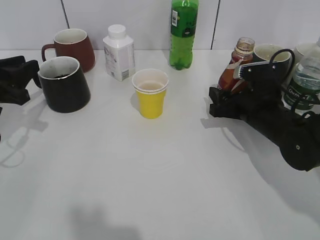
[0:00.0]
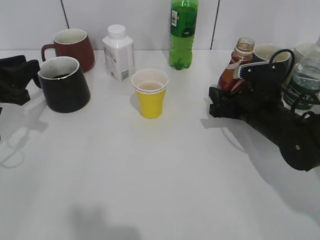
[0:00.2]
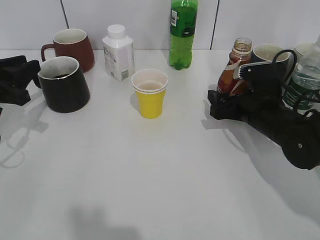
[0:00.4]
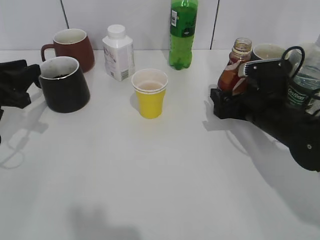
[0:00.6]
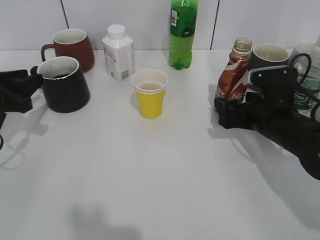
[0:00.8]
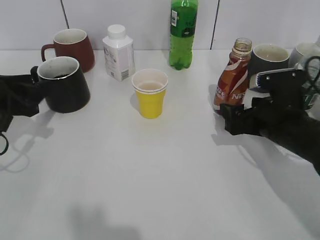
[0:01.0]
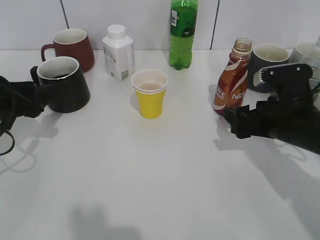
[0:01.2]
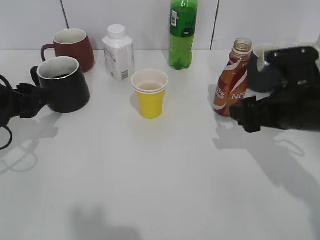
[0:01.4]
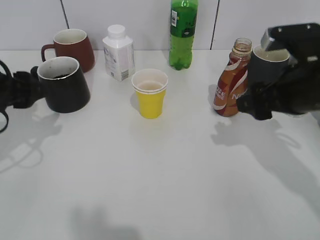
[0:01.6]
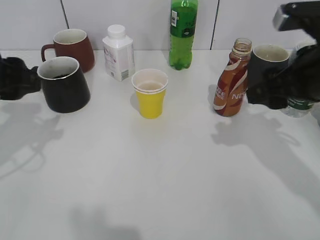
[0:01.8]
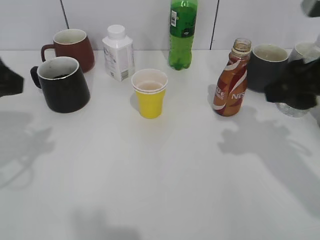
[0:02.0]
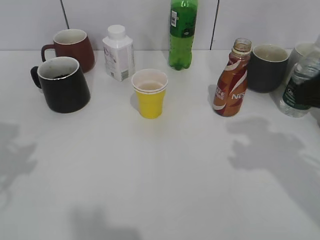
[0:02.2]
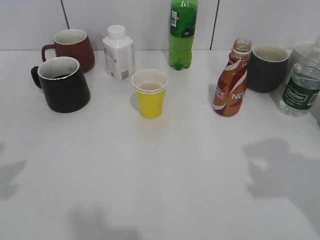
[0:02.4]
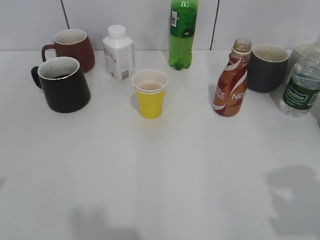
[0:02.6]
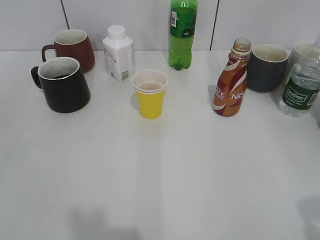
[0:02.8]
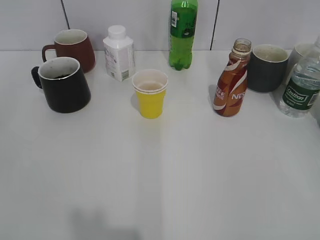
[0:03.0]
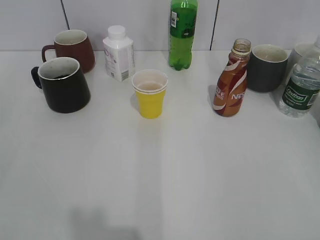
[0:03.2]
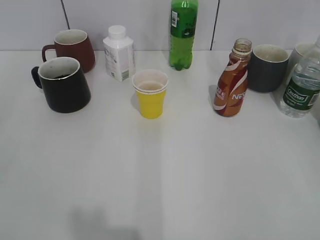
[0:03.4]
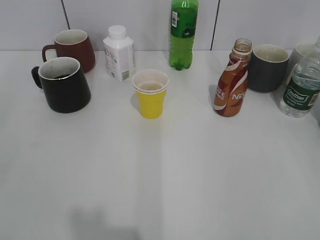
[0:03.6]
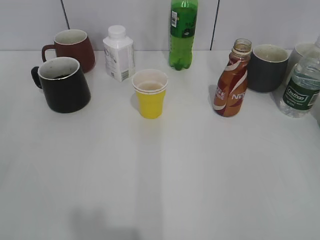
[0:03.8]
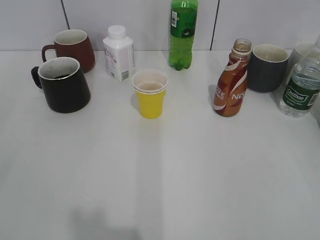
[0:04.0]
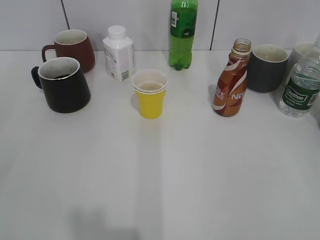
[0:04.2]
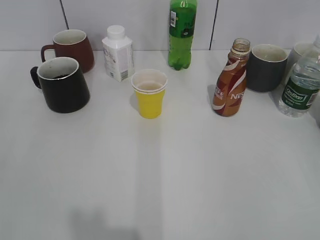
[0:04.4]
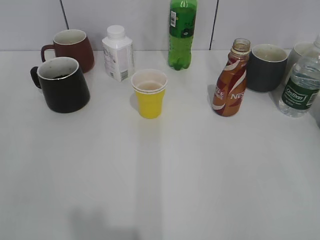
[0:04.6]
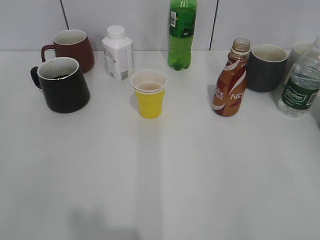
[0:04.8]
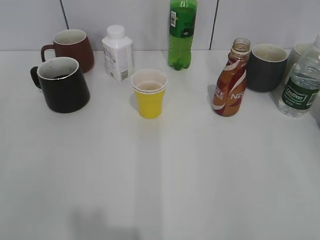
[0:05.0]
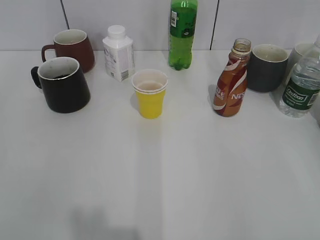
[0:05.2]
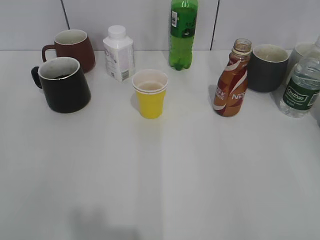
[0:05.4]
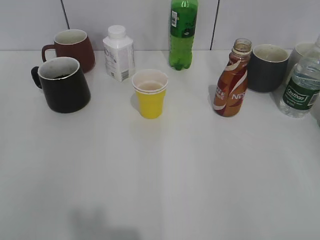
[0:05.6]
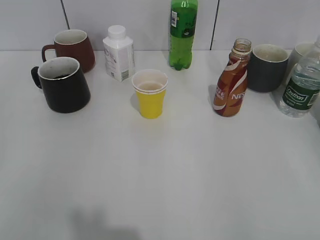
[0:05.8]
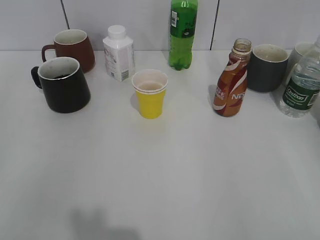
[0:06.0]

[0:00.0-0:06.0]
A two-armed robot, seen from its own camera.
Step, 0.0 to 0.6 s: Place the coffee bottle on the table with right gripper.
0.0 to 1.6 s: The left gripper changes place by some 5 cm, and opens up; the right gripper shifts roughly 10 cm upward and backward, and opens up.
1.6 to 3.0 s: The right gripper travels backward and to the right by approximately 30 cm. The left gripper is displaced backward by approximately 25 cm.
3.0 to 4.4 s: The grippers make only small movements.

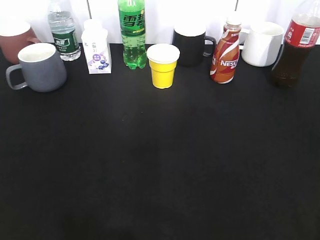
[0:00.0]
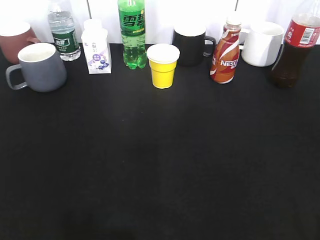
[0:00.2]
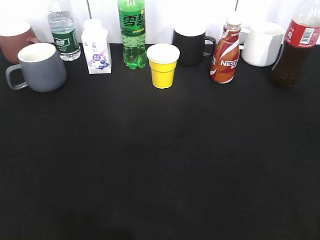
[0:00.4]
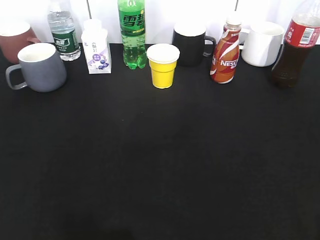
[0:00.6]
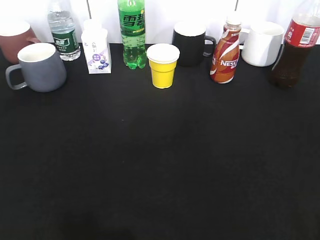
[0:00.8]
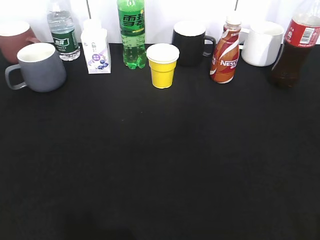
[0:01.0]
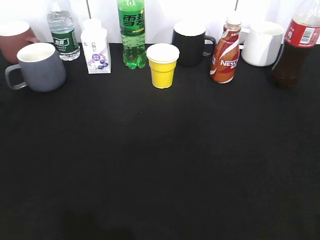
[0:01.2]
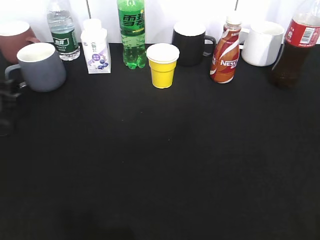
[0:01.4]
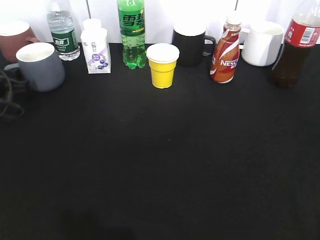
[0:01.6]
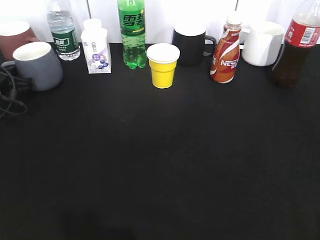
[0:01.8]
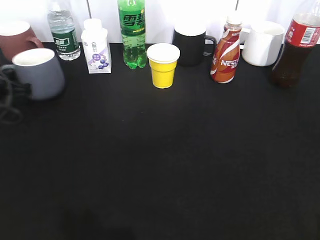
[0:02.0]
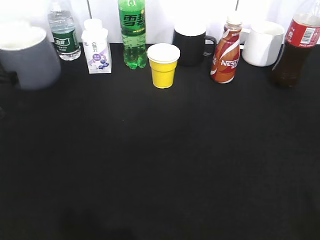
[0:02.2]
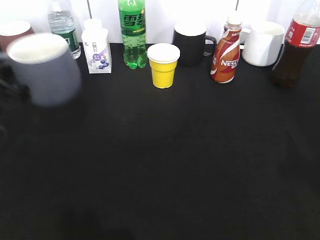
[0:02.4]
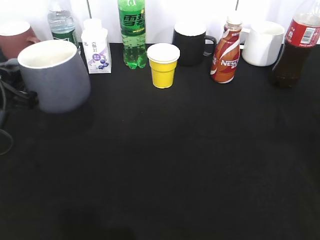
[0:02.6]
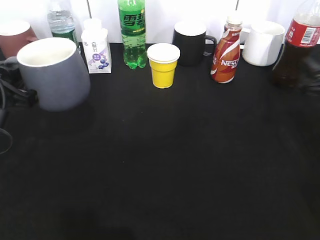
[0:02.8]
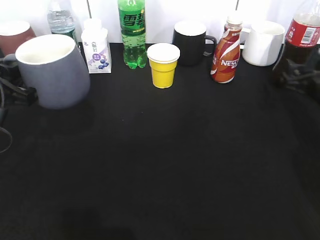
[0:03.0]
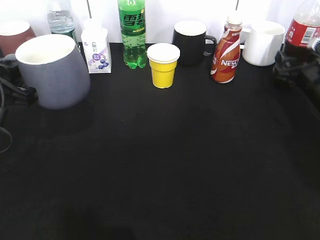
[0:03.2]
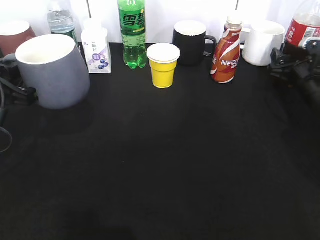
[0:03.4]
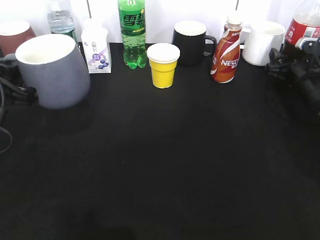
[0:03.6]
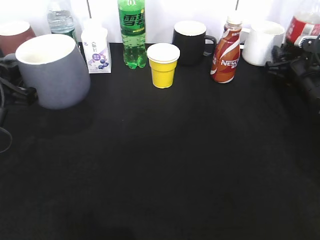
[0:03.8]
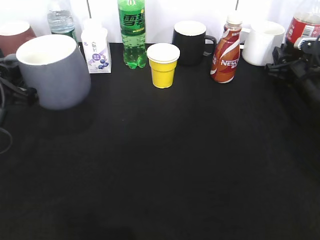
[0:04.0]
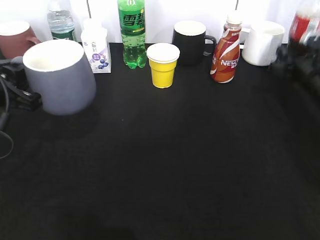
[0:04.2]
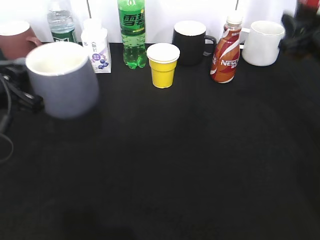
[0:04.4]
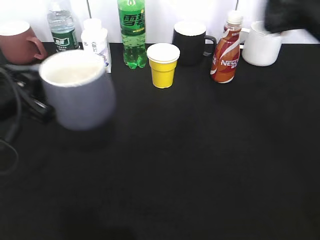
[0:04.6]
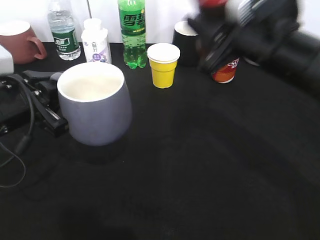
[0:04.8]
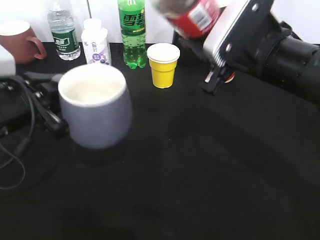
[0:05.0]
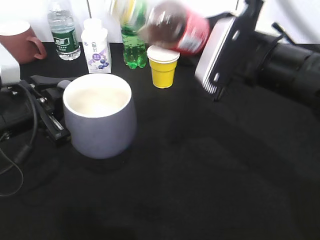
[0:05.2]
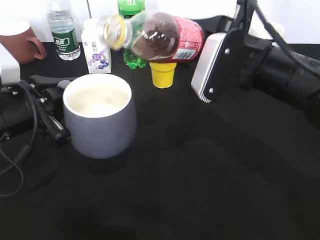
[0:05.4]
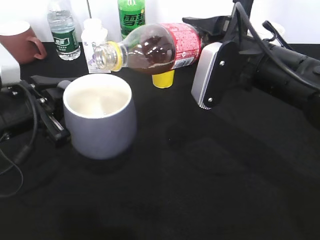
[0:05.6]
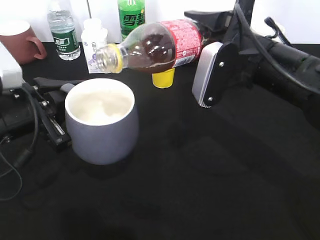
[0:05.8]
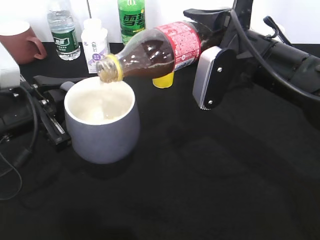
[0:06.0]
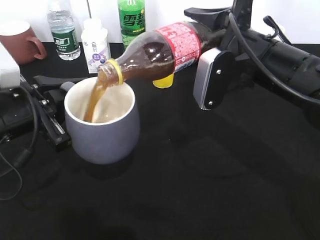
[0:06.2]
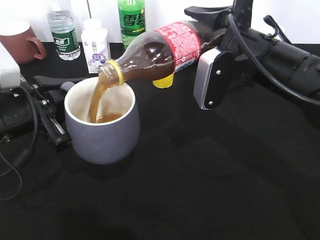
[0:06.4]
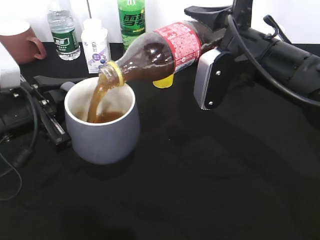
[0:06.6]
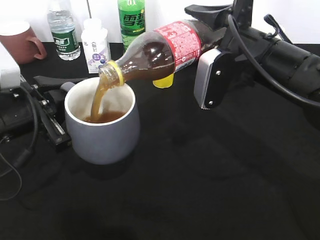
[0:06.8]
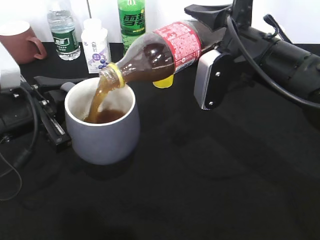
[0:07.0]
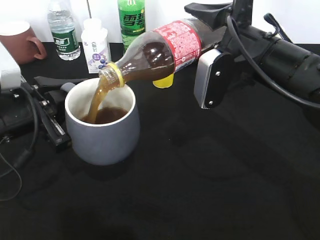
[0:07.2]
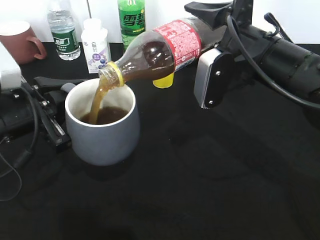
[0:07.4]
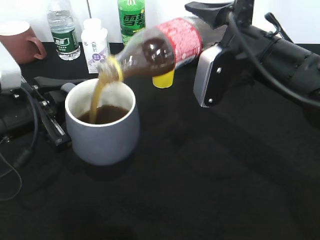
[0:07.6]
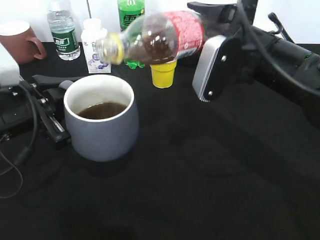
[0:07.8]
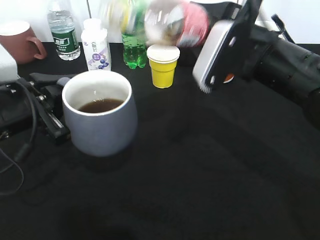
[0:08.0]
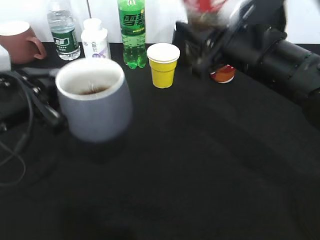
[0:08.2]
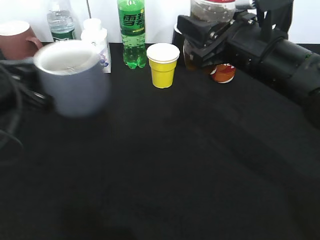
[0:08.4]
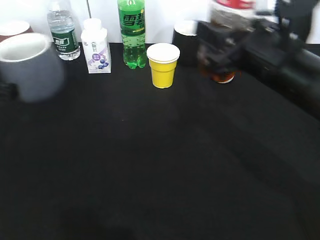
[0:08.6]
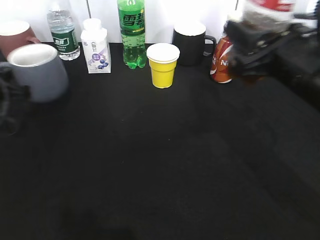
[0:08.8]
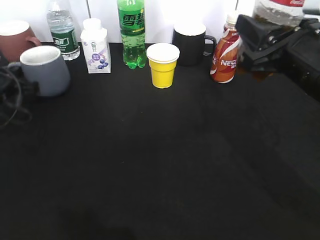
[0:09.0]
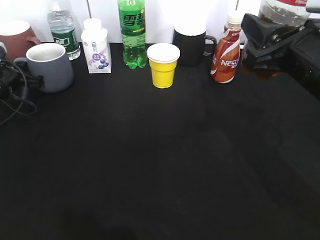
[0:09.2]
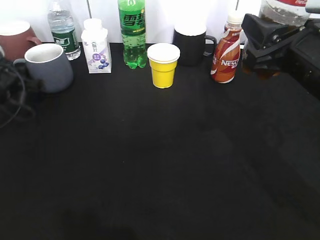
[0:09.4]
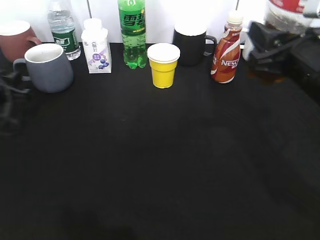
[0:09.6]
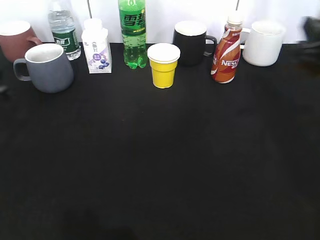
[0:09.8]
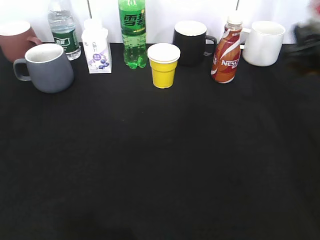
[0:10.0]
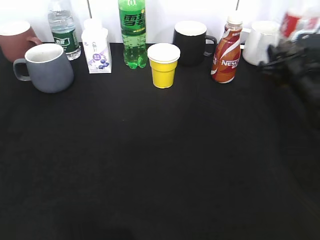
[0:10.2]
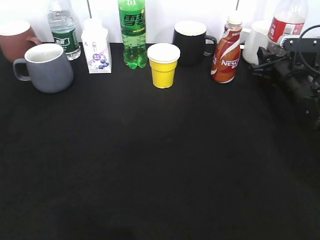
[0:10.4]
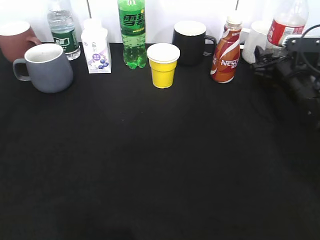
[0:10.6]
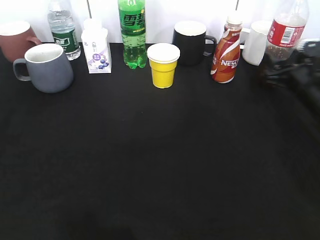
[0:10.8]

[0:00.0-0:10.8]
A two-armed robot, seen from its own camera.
Step, 0.0 to 1.8 s: Grasp the grey cup with left gripper.
Step, 2.2 to 2.6 s: Lift the grey cup with left gripper.
Step, 2.8 to 4.0 s: Grasp the bottle with cola with right gripper.
Step, 4.2 to 7.2 s: Pour the cola from bottle to cup with right gripper.
Step, 7.4 to 9.6 s: Place the grey cup on the table with left gripper.
0.0 to 1.6 s: The left gripper goes some 40 cm forward and downward, and closes up.
1.6 to 3.0 s: The right gripper moves forward and downward, some 35 cm. Meanwhile the left gripper goes some 15 cm backward, upward and to the right, and closes its fingers.
3.0 to 4.6 s: The right gripper moves upward and to the left, some 15 cm, and closes up.
4.6 to 6.2 s: The right gripper heads to the left, covering about 10 cm.
6.2 to 7.8 s: The grippers move only a little.
7.8 to 9.2 s: The left gripper is displaced forward, to the left and downward by about 20 cm. Meanwhile the right gripper moves to the right, approximately 5 cm.
9.2 to 10.8 s: The right gripper is displaced downward, forward and to the right by about 20 cm, and opens up. The left gripper is displaced backward and upward by about 20 cm.

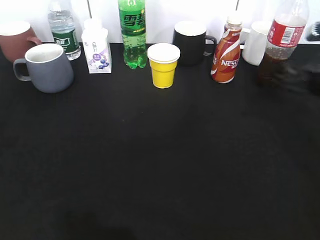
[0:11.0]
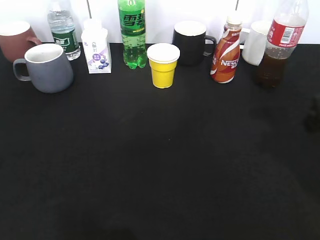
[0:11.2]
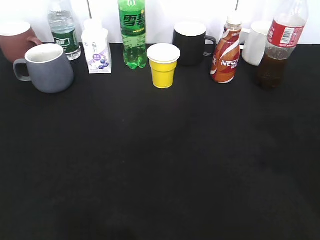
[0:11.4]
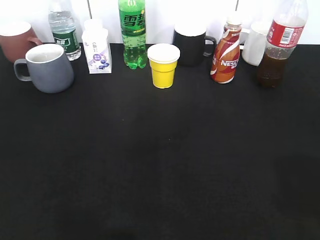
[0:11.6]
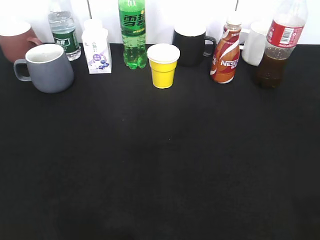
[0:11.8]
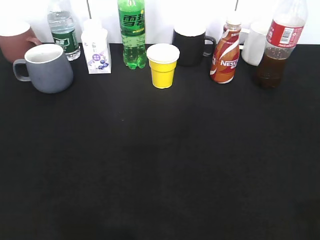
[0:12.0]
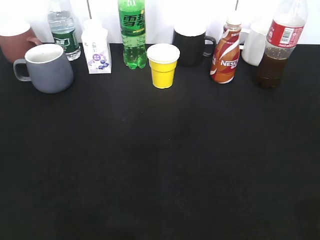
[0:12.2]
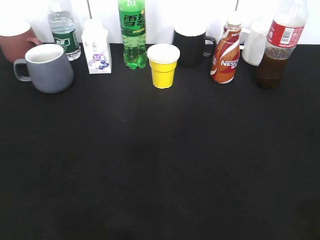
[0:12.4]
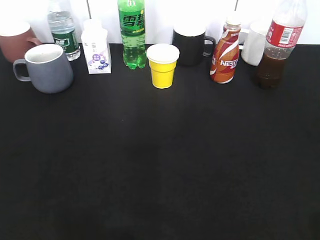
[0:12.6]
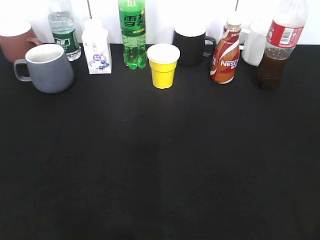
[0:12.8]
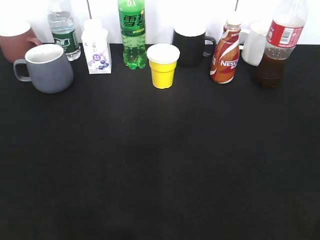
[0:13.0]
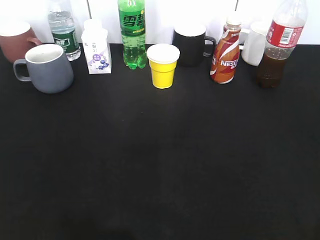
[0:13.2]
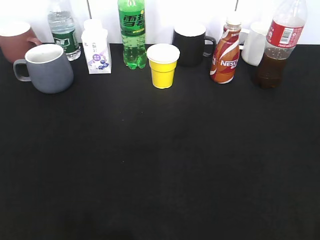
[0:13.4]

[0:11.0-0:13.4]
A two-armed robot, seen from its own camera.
11.0 to 12.2 s: Both grippers move backward, approximately 25 cm. The left gripper opens up.

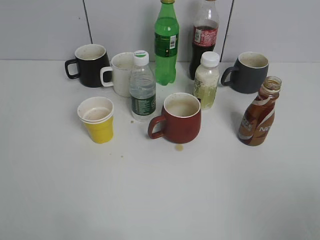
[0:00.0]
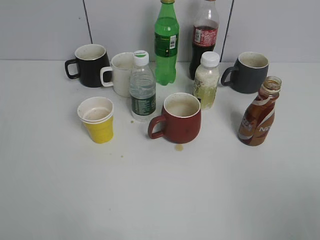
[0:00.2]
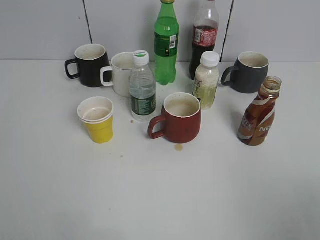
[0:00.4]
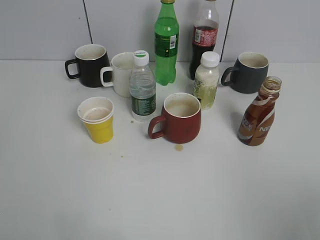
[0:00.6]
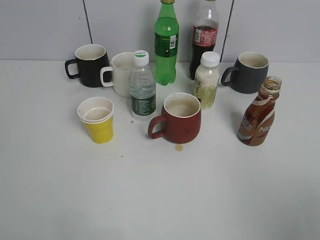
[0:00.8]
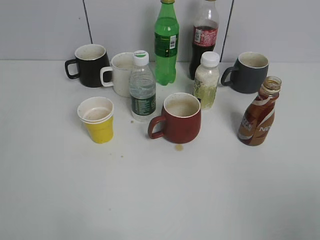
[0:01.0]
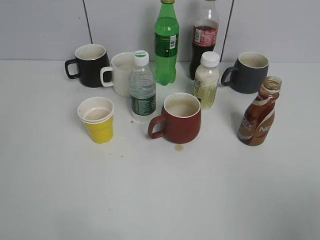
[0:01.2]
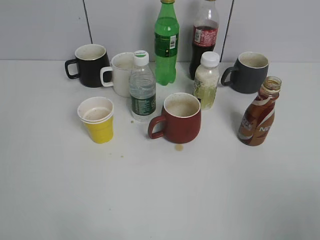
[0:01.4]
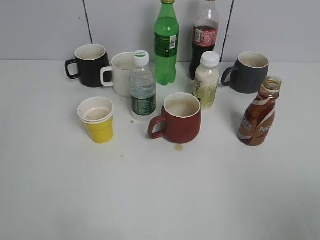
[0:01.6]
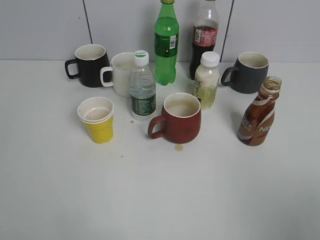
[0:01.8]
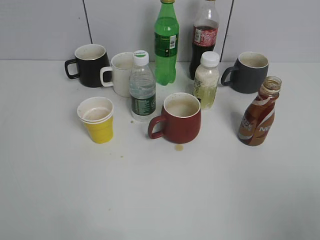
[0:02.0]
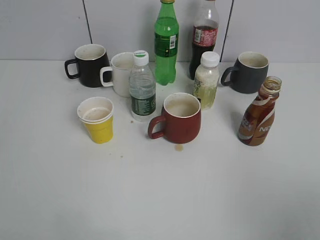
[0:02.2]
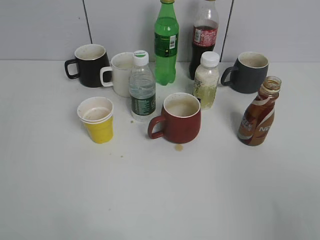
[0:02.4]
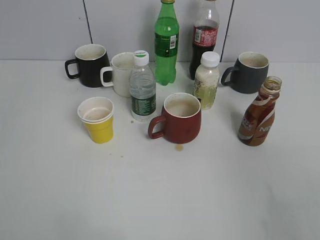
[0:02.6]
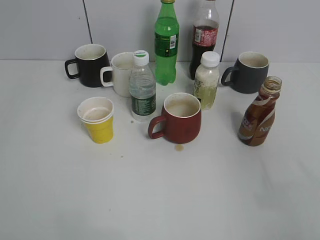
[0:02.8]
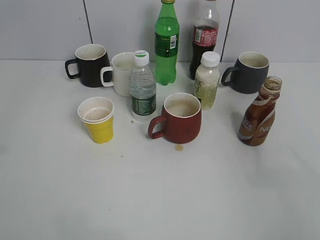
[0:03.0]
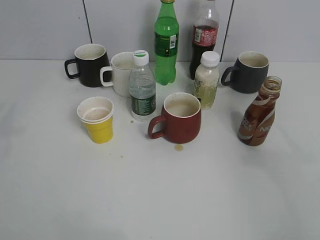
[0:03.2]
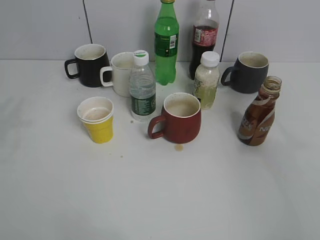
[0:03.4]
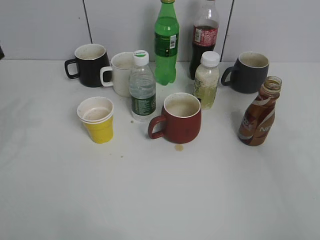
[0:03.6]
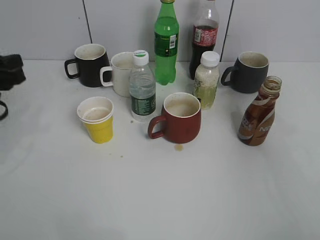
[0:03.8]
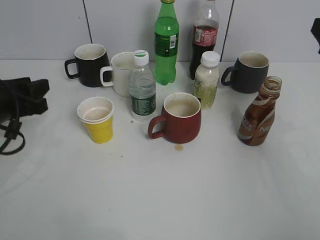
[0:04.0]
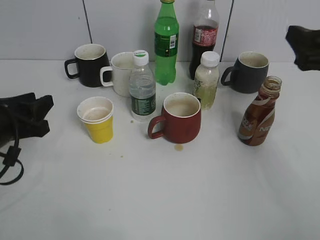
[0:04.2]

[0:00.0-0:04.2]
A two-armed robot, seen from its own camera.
1.4 to 2.8 s: The right gripper travels forward by roughly 5 cm.
2.8 to 4.2 s: The left gripper shifts approximately 25 cm downward and forward. Meanwhile the right gripper travels forward by about 20 cm.
